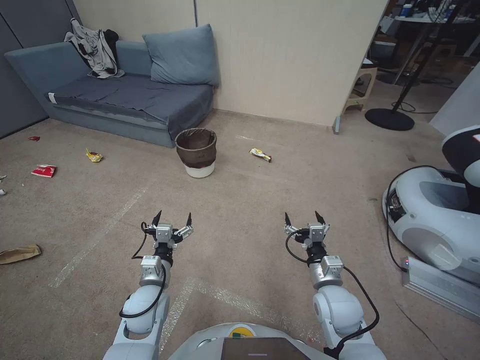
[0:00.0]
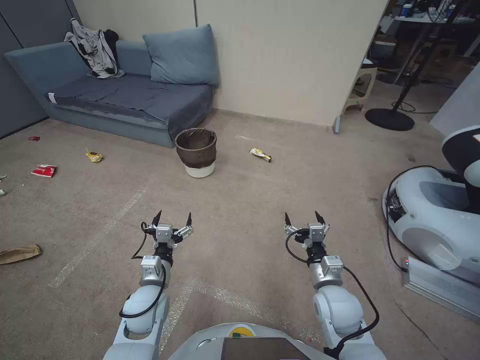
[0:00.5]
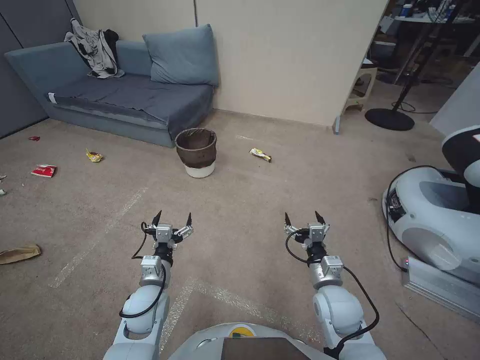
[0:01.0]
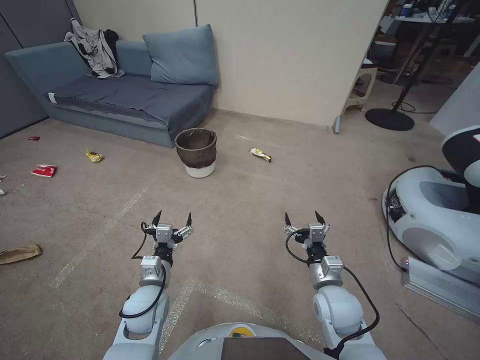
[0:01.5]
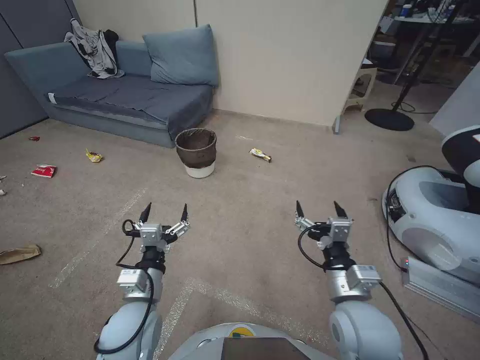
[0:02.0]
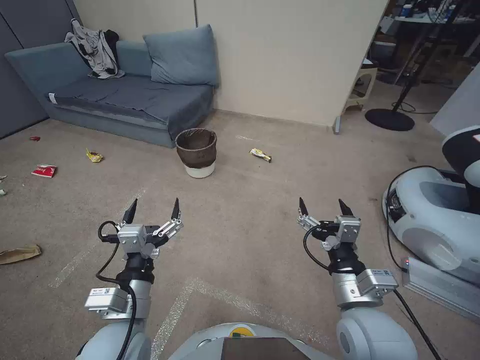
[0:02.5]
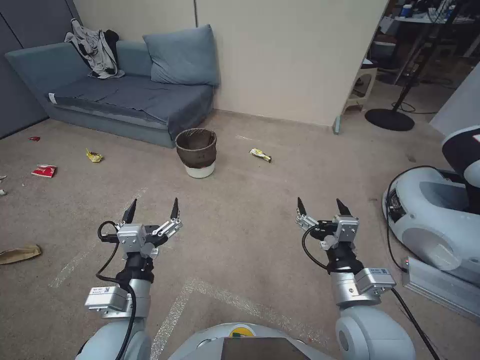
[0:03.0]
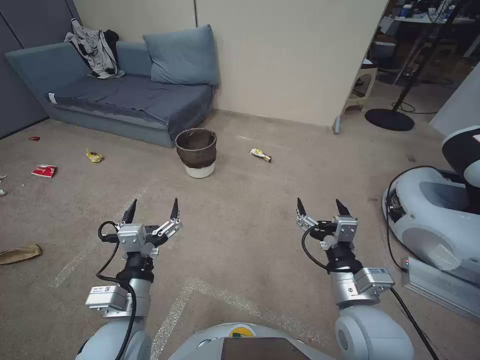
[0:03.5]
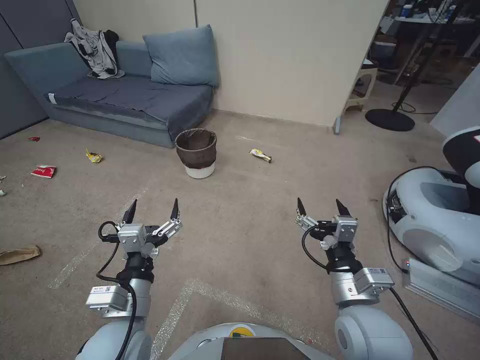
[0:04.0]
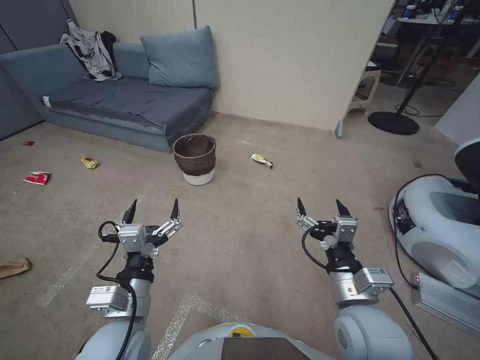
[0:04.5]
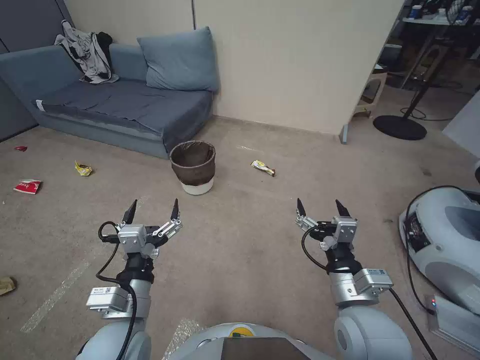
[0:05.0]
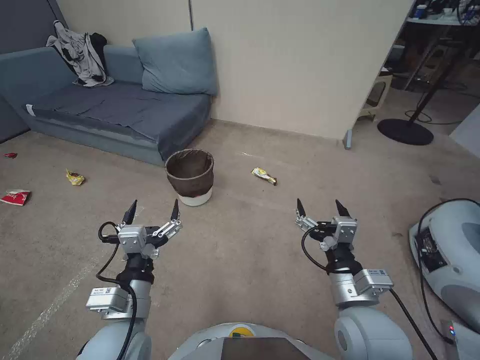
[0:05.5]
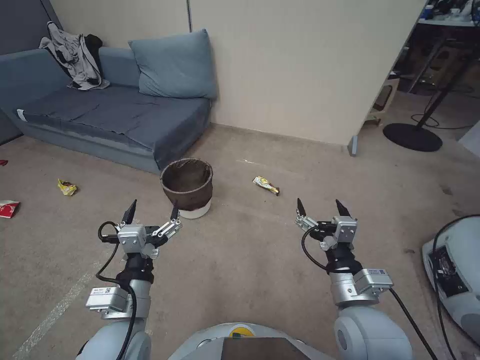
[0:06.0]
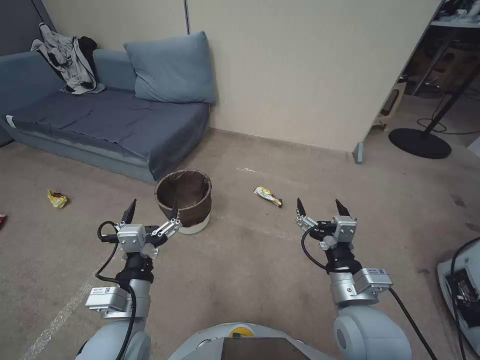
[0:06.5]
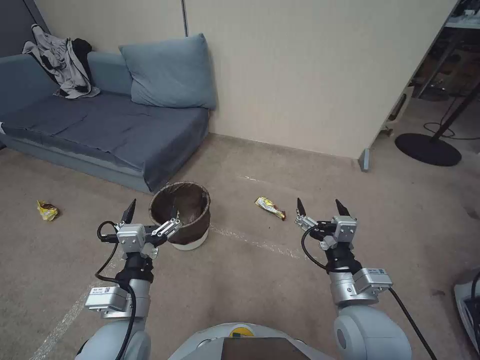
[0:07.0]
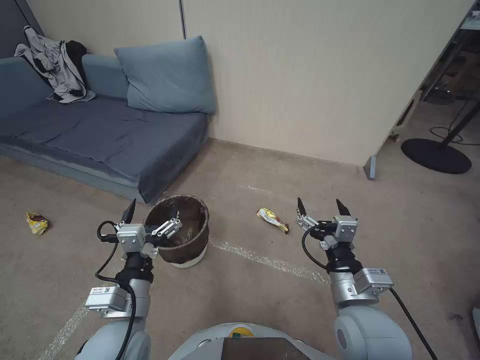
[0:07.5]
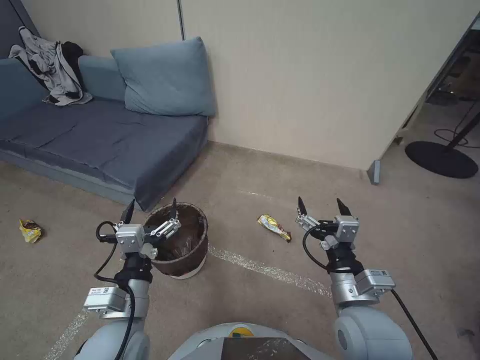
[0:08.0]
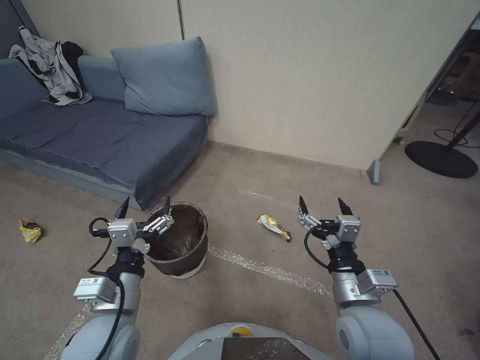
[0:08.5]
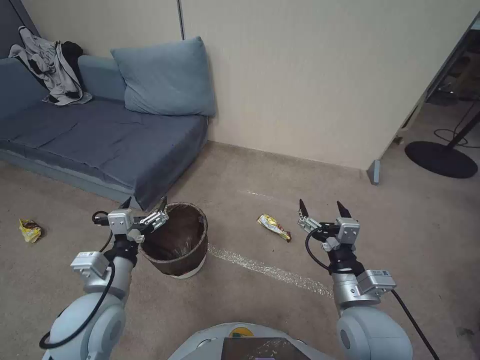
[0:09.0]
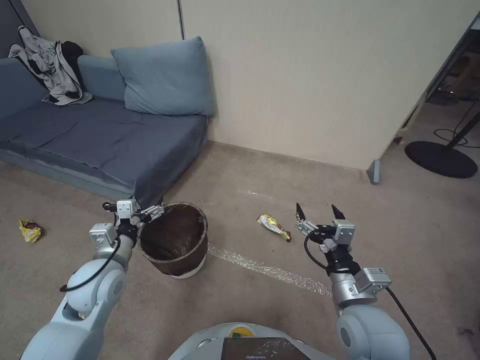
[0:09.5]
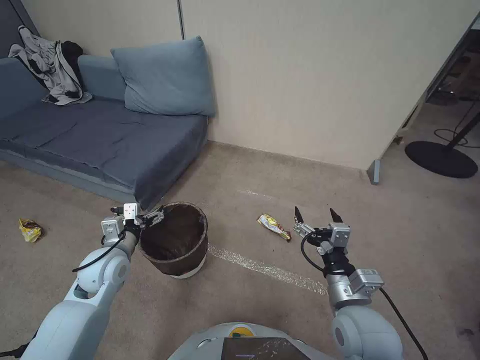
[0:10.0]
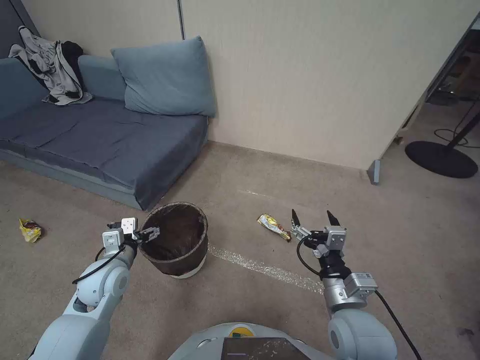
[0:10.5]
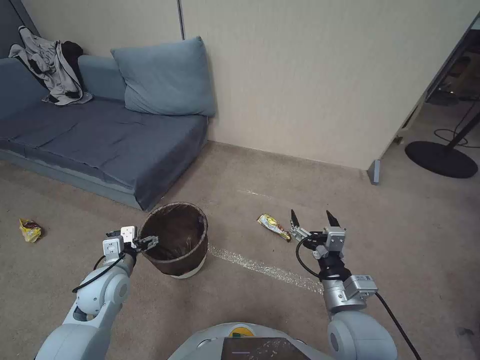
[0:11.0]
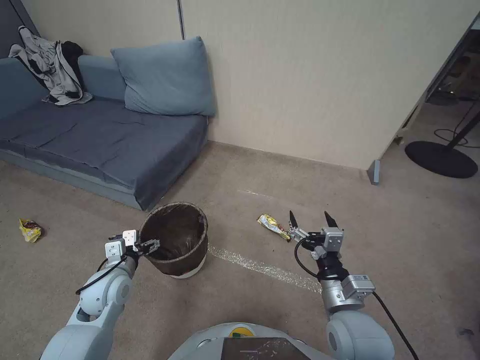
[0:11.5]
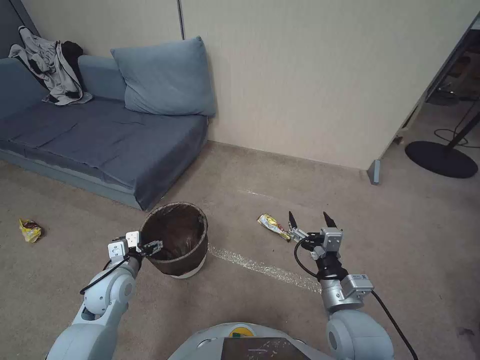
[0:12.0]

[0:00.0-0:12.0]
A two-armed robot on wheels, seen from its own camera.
Task of the whole recording: Pick up the trash bin, then pick up the garbage from the floor and place it into the trash bin.
0:02.0 to 0:04.0: The left gripper goes some 5 cm upward.
0:08.0 to 0:10.0: The left gripper heads forward and to the left, covering about 20 cm.
0:10.0 to 0:12.0: The left gripper changes place by about 5 cm.

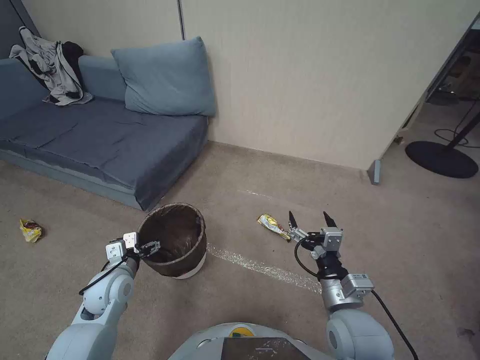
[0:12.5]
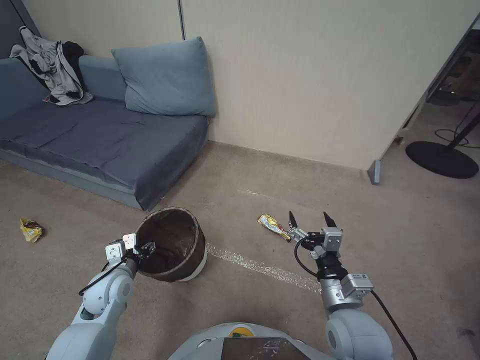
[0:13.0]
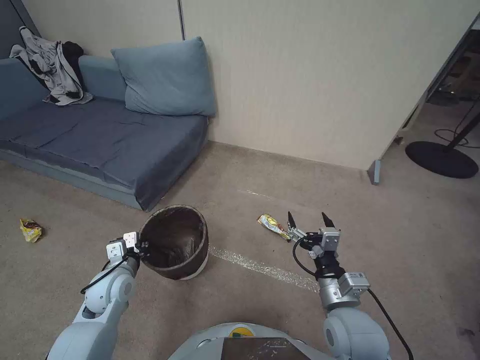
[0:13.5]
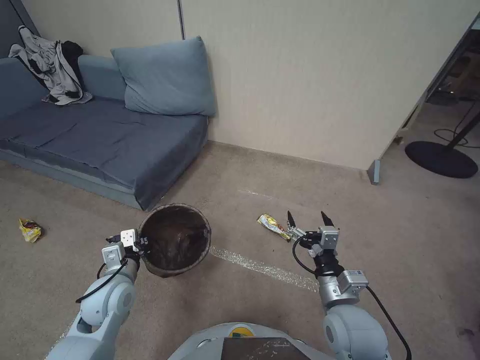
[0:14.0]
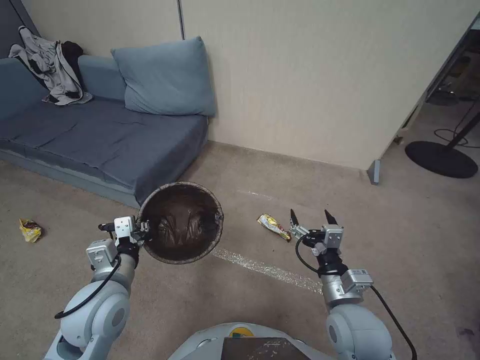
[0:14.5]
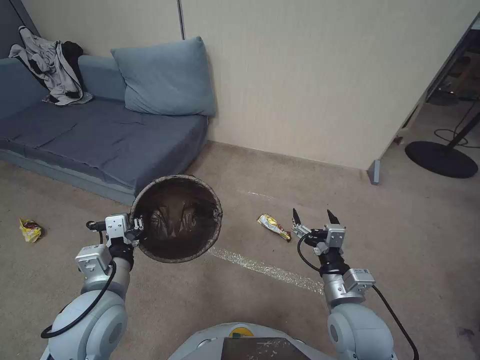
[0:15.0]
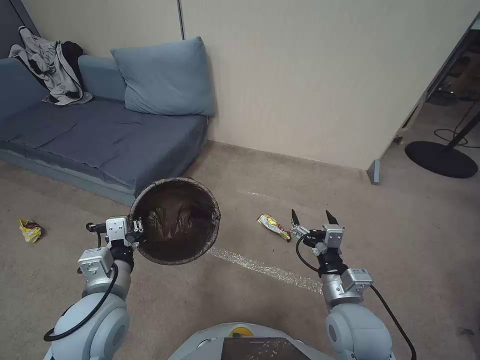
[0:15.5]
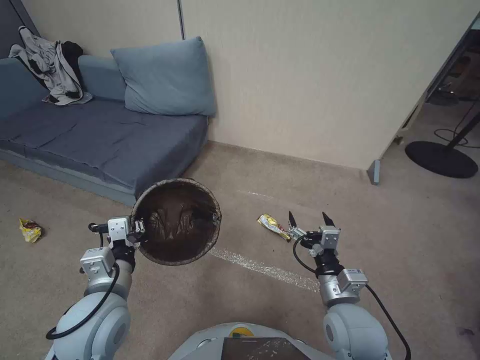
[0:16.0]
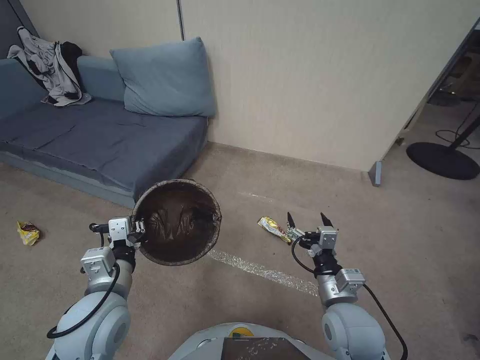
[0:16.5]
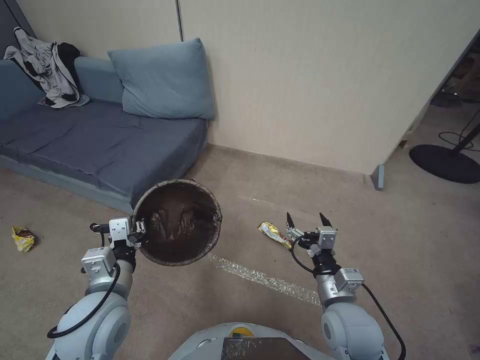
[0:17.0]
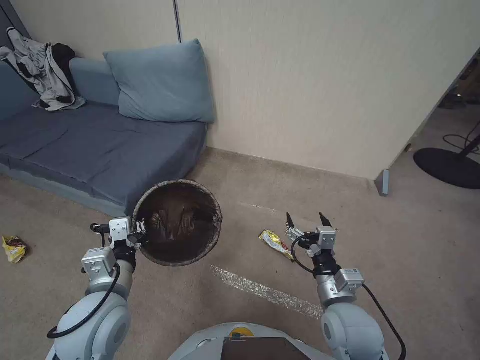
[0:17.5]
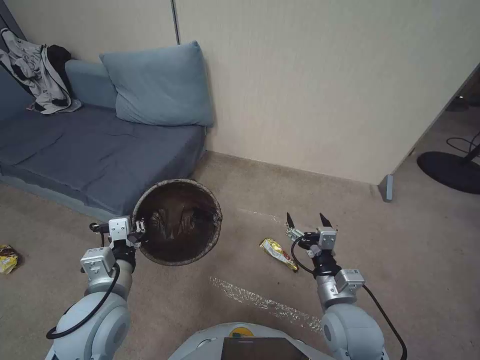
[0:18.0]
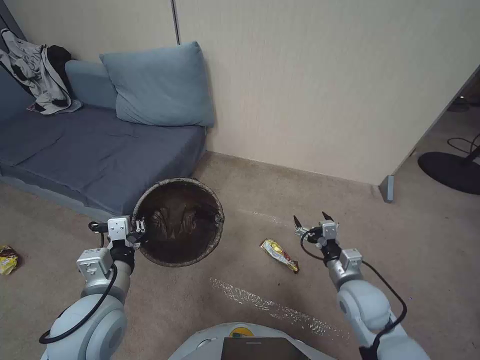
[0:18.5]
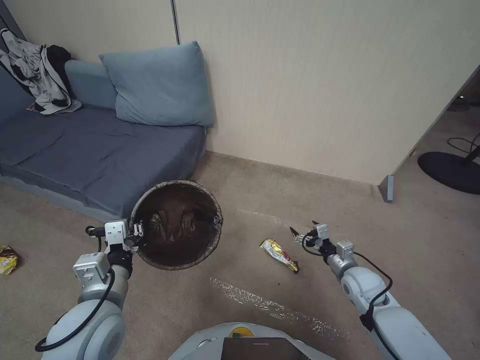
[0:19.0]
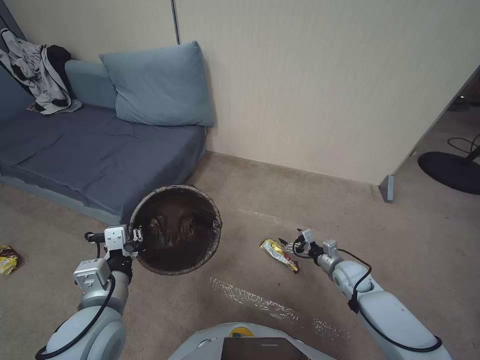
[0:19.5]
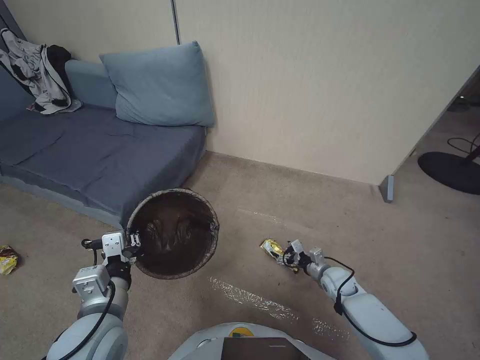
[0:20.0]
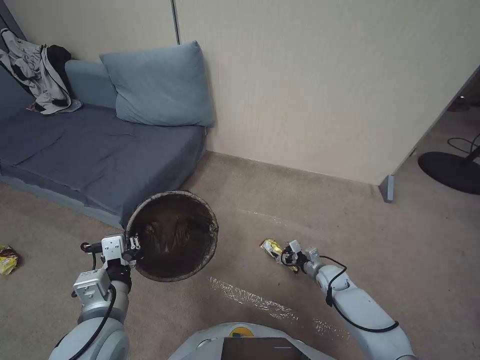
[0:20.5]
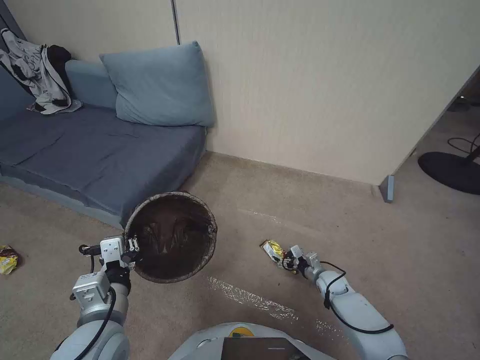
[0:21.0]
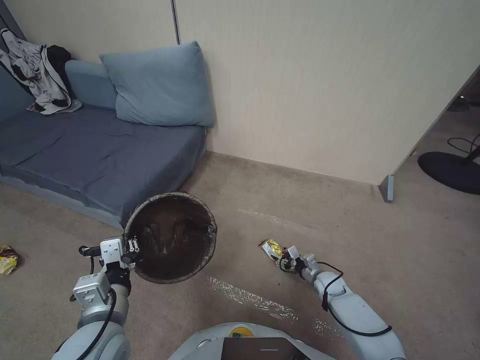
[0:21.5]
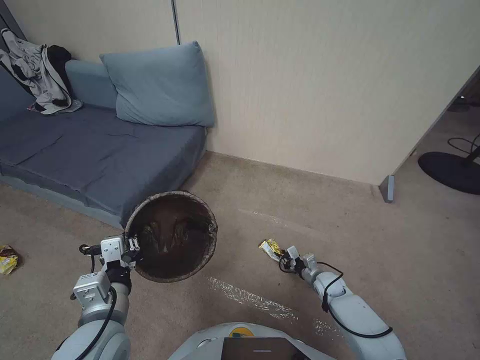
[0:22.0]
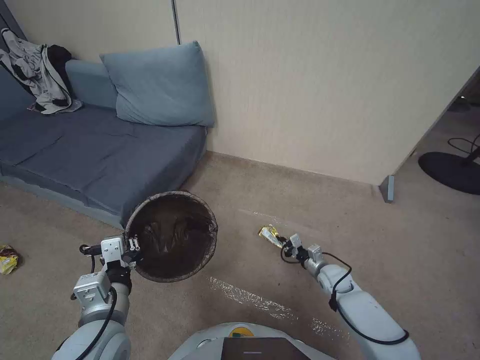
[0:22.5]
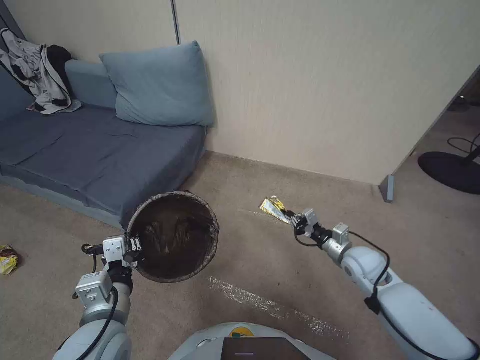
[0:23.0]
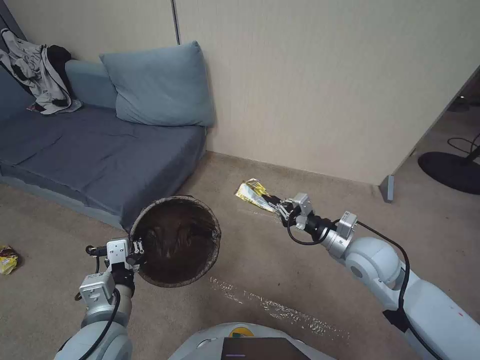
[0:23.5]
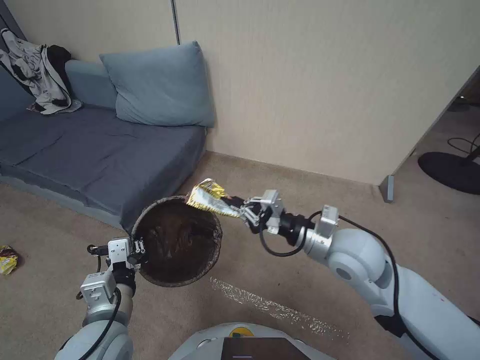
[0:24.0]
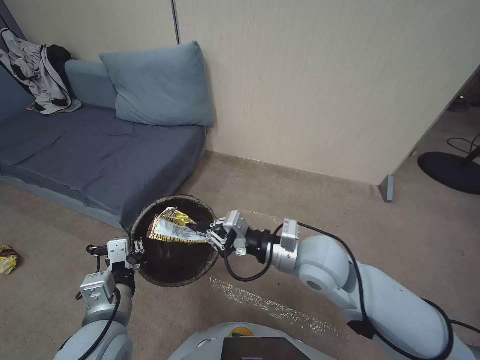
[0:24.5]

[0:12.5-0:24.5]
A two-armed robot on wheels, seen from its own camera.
Task of the whole recording: Pick up the trash bin, then pick up the garbage from the floor and place it into the trash bin.
0:12.5 to 0:14.5: The left gripper is displaced upward and backward by approximately 10 cm, and closes.
0:14.5 to 0:16.5: The grippers move only a little.
0:16.5 to 0:18.5: The right gripper is displaced to the right by roughly 5 cm.
0:18.5 to 0:20.5: The right gripper heads downward and forward, covering some 25 cm.
0:20.5 to 0:22.5: The right gripper closes its fingers.
0:22.5 to 0:24.5: The right gripper travels upward and to the left by approximately 35 cm.

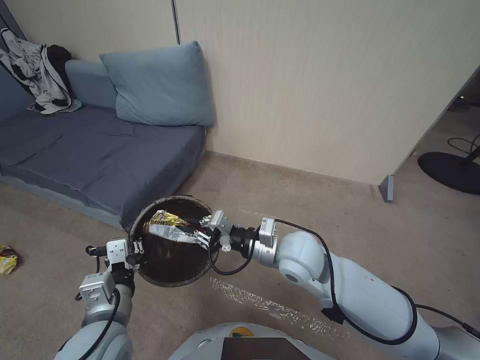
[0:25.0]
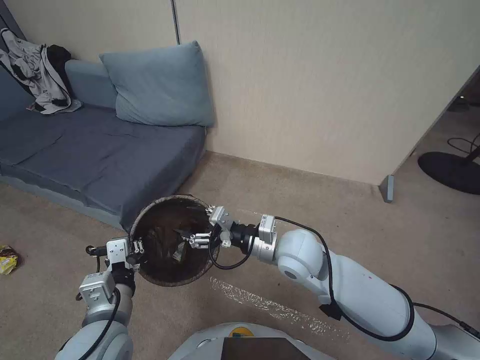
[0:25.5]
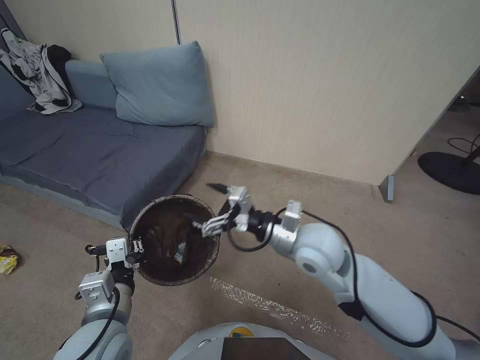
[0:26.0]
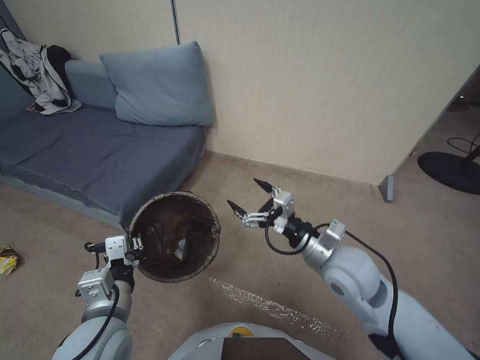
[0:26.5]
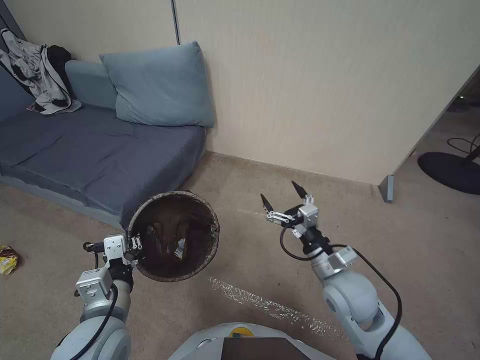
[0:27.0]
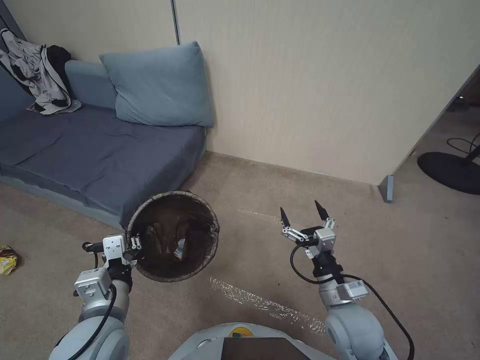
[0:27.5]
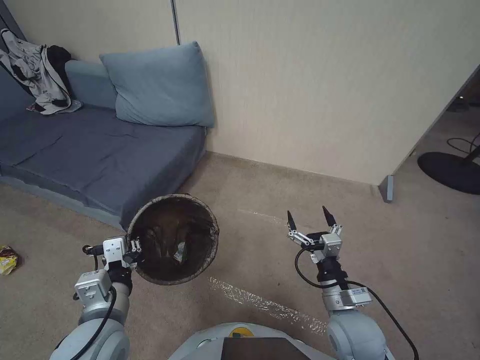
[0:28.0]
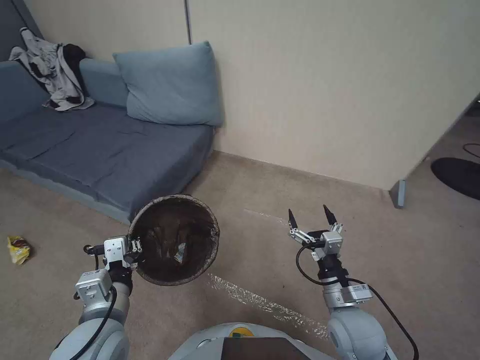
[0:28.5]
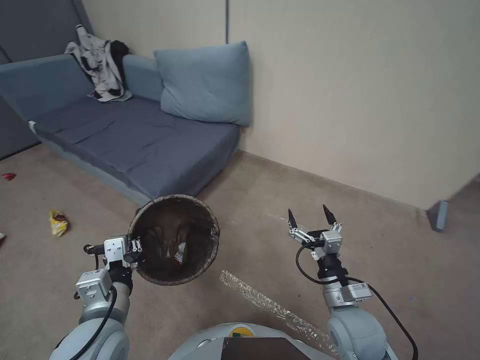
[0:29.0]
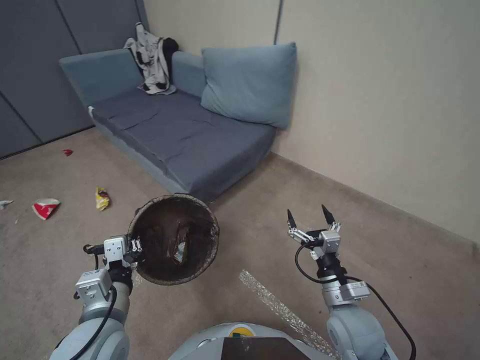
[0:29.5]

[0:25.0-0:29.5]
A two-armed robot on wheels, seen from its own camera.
Task of the whole recording: Pick up the trash bin, then pick up the garbage from the floor and place it into the trash bin.
0:25.0 to 0:27.0: The right gripper travels to the right and downward by approximately 10 cm, and opens.
0:27.0 to 0:29.5: The right gripper is displaced backward and downward by approximately 10 cm.
